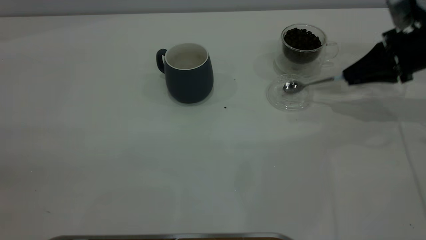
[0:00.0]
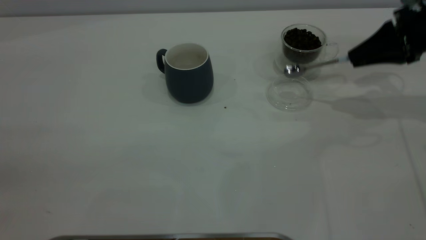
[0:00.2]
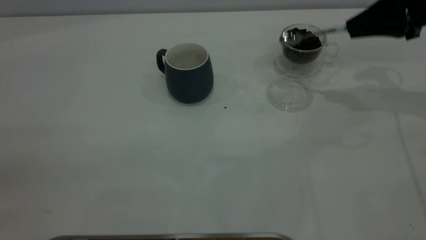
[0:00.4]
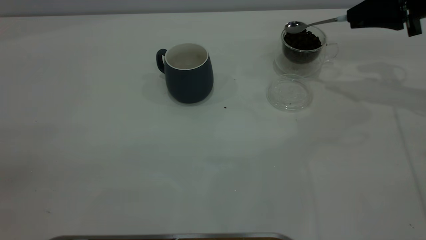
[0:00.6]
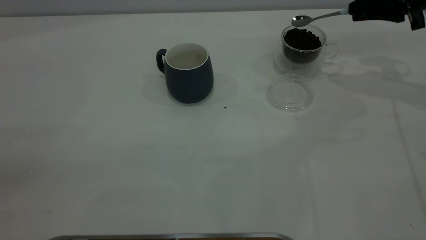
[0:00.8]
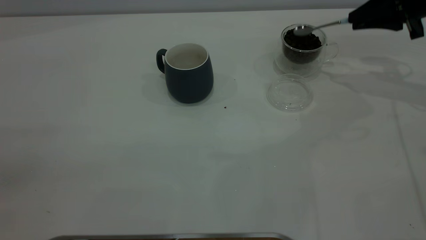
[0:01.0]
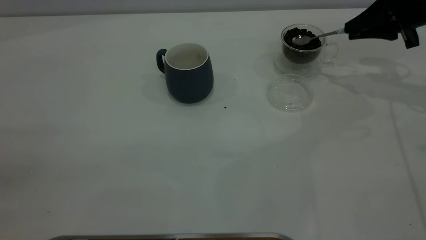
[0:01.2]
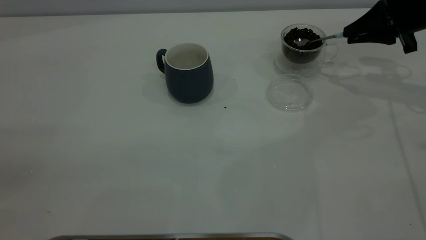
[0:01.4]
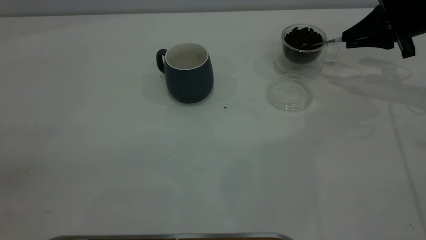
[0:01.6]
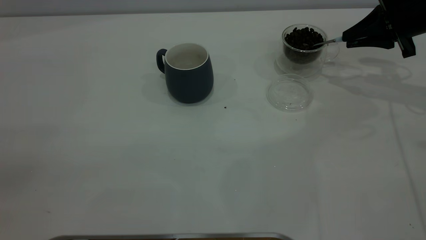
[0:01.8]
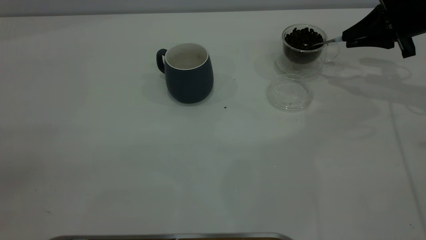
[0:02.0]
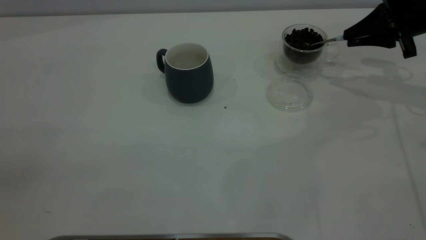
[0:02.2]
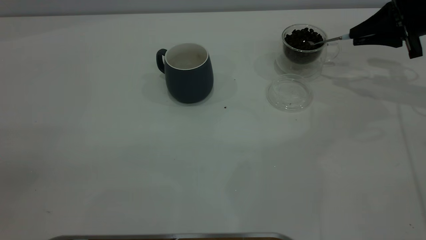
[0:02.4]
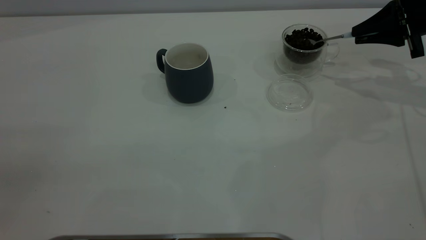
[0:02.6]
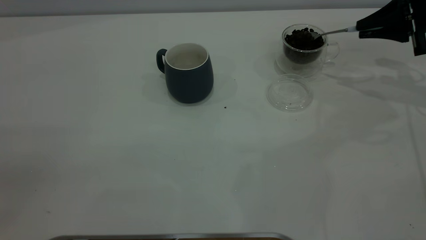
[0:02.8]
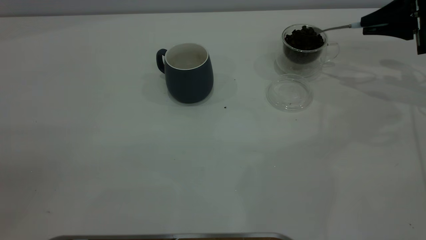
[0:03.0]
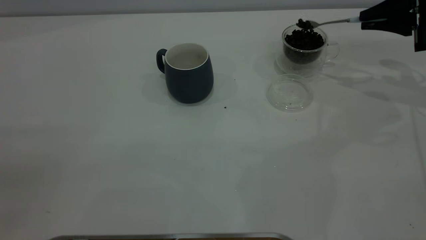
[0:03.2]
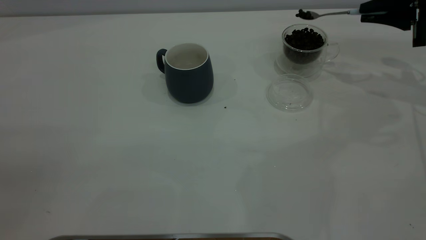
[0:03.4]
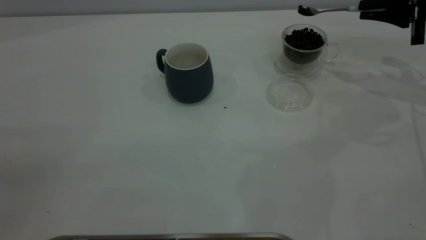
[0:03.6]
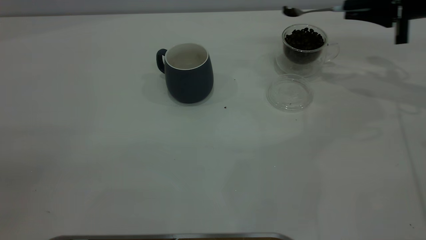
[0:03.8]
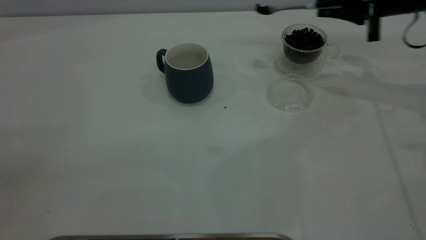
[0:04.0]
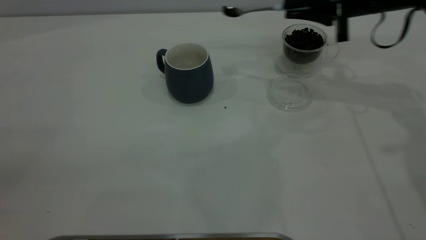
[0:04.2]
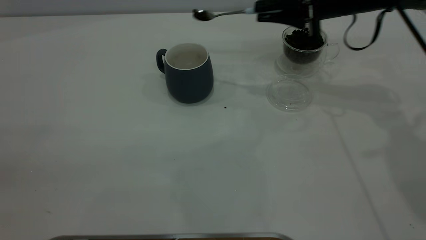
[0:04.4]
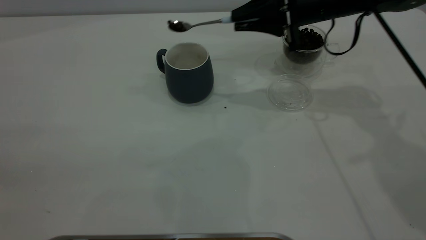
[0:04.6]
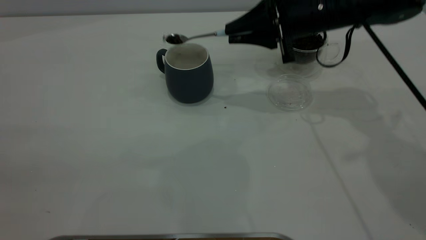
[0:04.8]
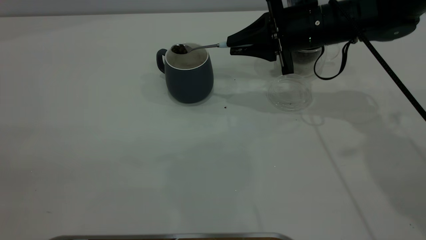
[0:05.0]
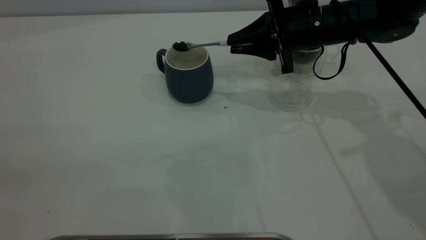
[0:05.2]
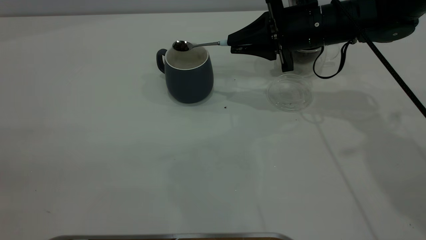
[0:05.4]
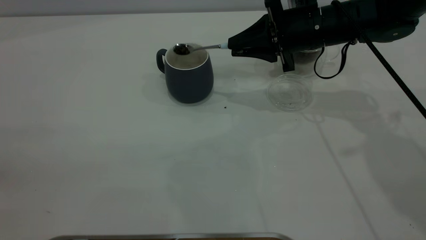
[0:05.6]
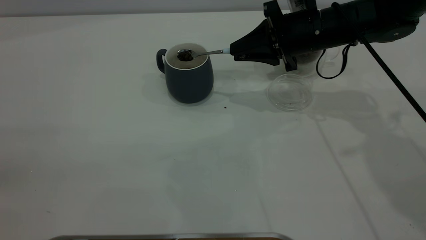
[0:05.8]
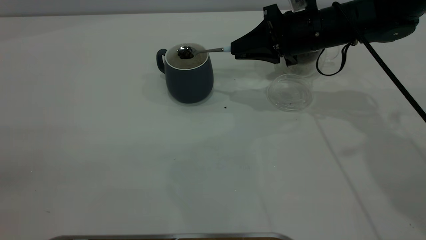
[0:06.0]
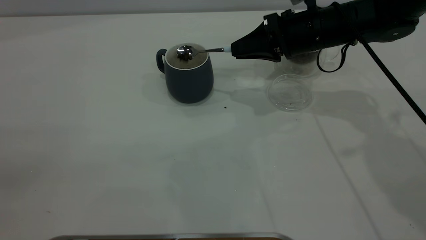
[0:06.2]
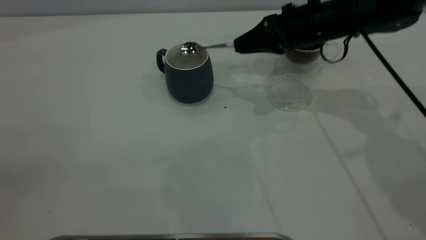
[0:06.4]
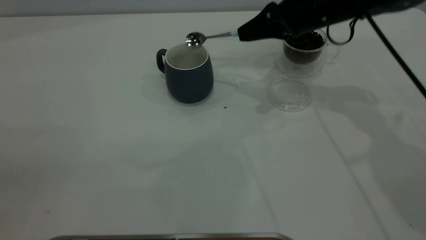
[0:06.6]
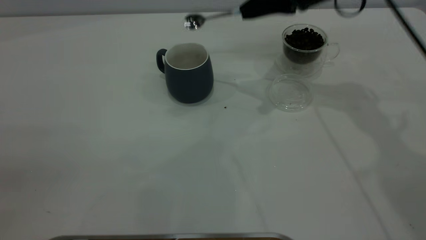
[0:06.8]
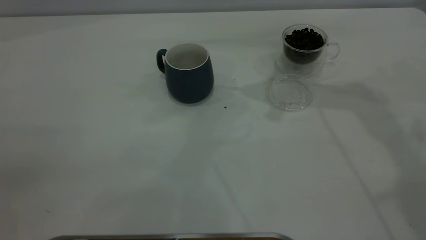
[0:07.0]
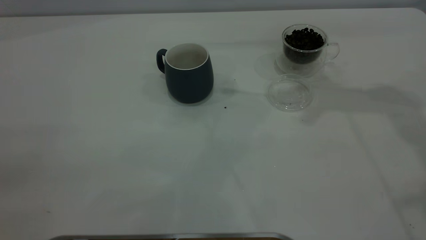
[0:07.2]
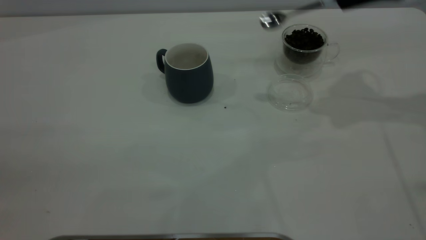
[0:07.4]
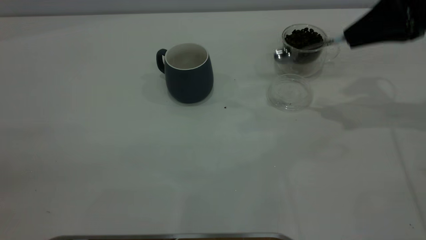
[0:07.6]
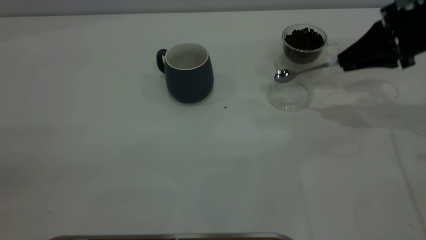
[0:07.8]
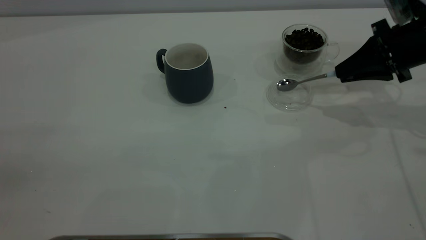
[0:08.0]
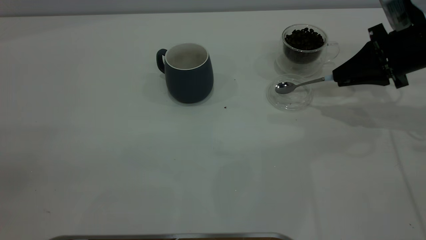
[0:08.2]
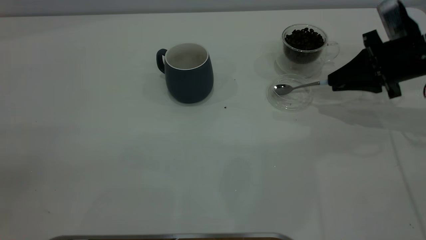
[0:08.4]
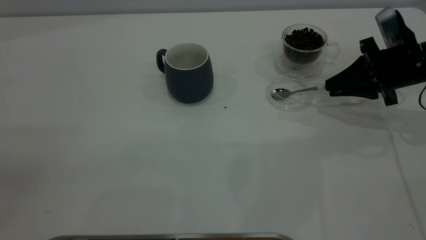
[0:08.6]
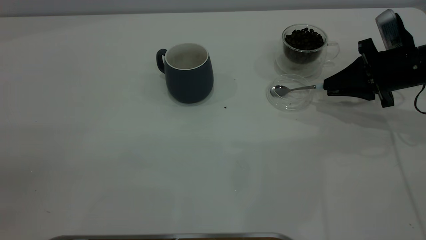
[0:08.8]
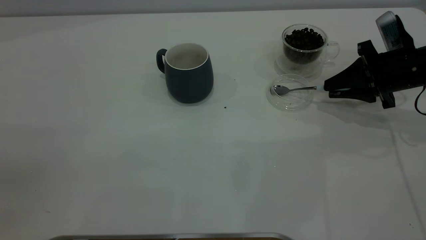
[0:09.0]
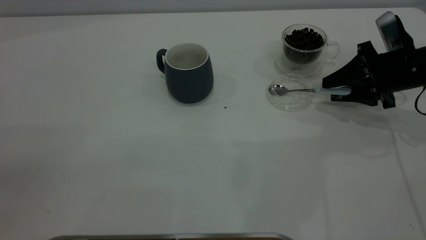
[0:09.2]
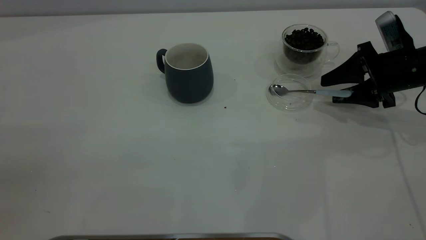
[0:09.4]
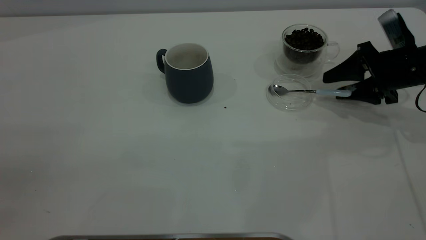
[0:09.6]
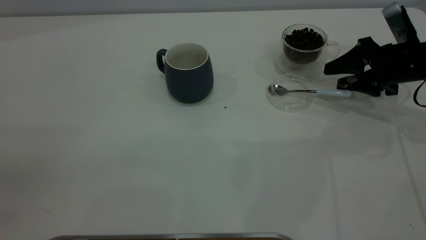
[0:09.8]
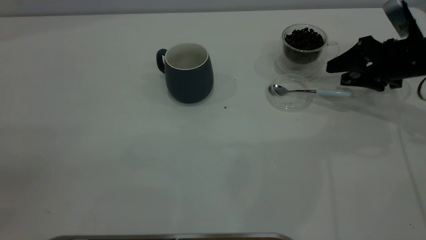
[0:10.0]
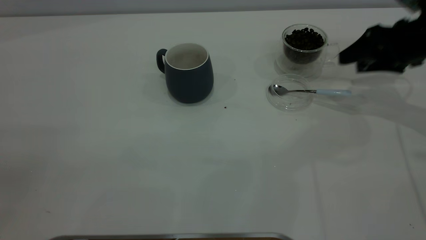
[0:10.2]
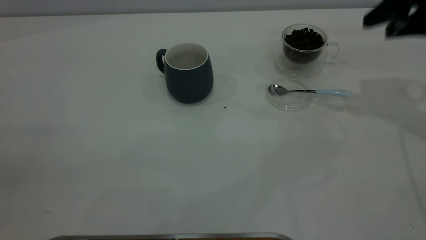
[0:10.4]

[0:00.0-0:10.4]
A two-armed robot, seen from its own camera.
Task of the whole recording: the left gripper place the grey cup in the center of the table, the right gripper take the blue spoon from the cup lid and scoop out the coffee beans from the coffee cup and put them into the grey cup, the right gripper put the spoon back into the cup lid.
Step, 0:00.4 to 0:06.6: Scoop a spoonful of beans into the cup.
Step, 0:06.8 to 0:10.0: Place the spoon back in its original place.
0:01.4 to 0:03.0: The grippers stay close to where they were, moving slightly.
0:03.0 to 0:04.4: The right gripper is displaced to the left by roughly 20 cm.
0:04.4 to 0:06.0: The right gripper shifts about 5 cm downward.
0:06.0 to 0:07.4: The right gripper moves to the right and upward, about 20 cm.
0:07.4 to 0:09.0: The right gripper moves downward, about 15 cm.
0:09.0 to 0:10.4: The right gripper travels upward by approximately 15 cm, and opens its fingers.

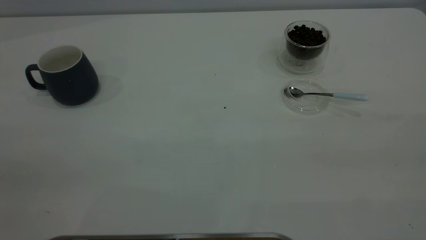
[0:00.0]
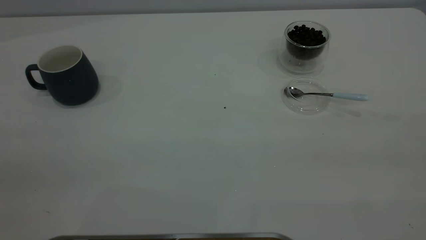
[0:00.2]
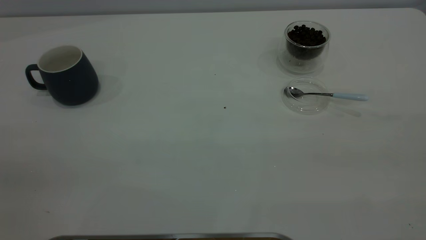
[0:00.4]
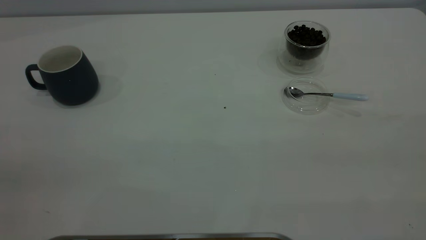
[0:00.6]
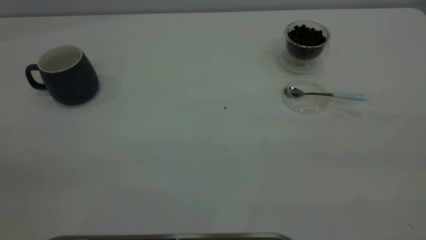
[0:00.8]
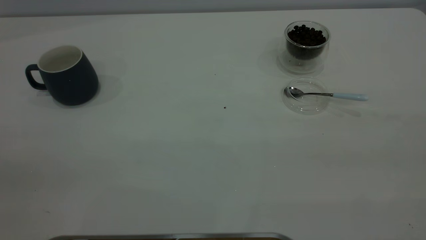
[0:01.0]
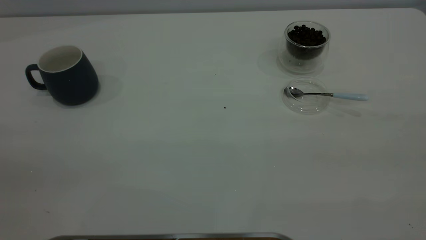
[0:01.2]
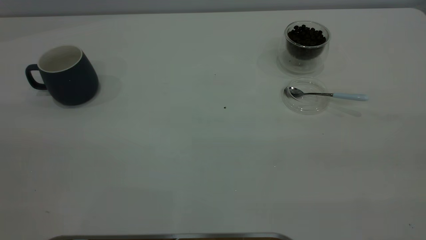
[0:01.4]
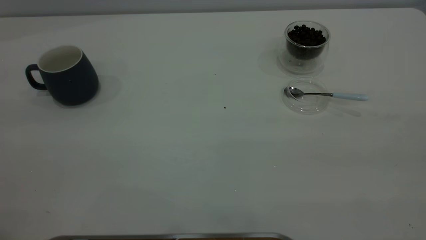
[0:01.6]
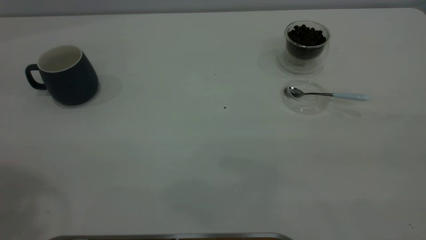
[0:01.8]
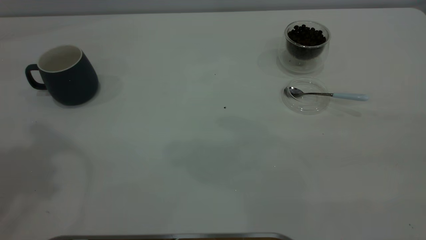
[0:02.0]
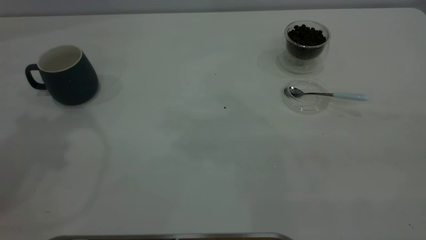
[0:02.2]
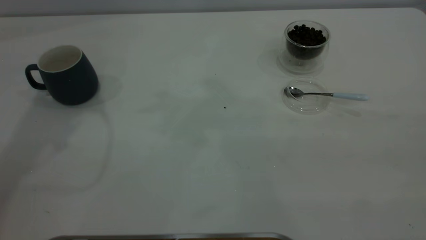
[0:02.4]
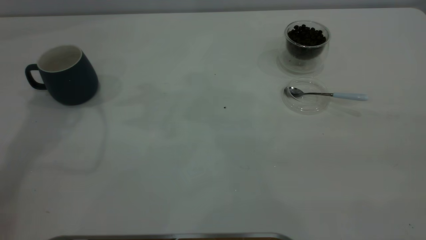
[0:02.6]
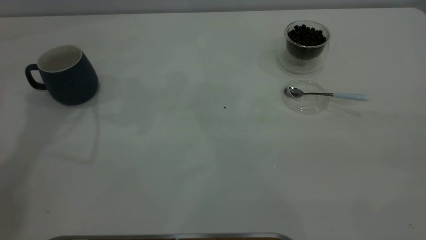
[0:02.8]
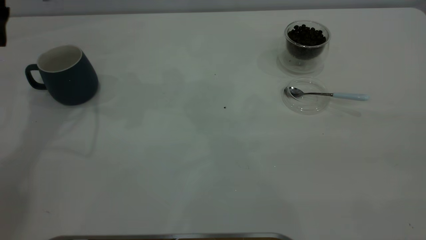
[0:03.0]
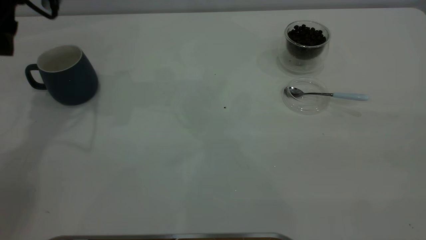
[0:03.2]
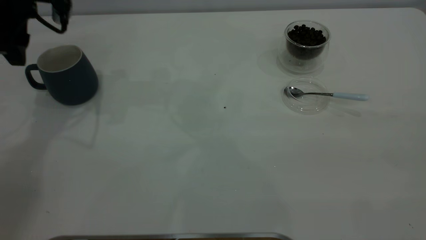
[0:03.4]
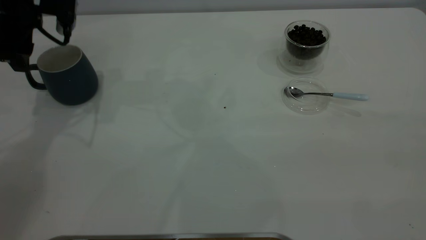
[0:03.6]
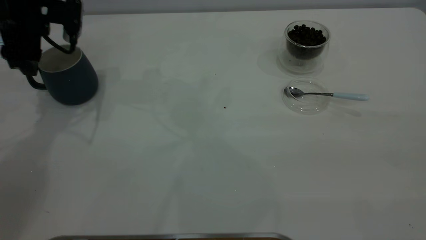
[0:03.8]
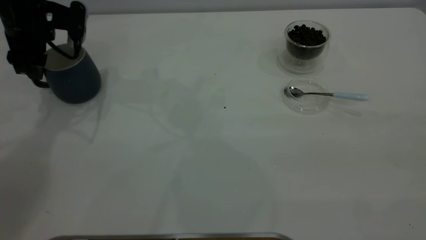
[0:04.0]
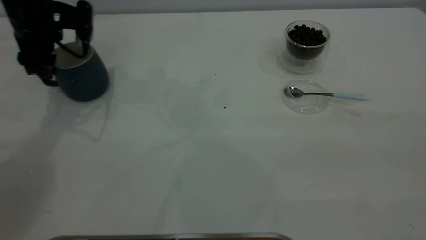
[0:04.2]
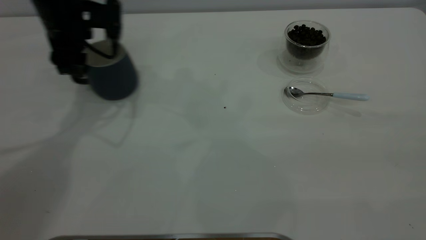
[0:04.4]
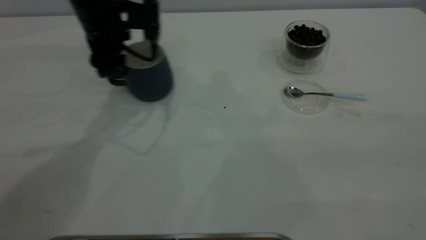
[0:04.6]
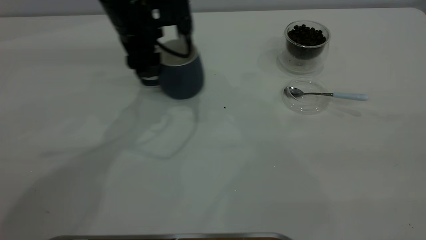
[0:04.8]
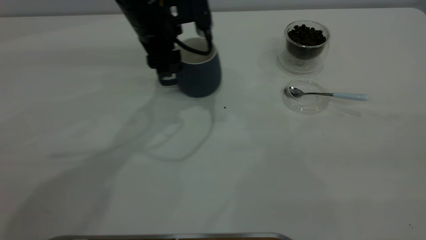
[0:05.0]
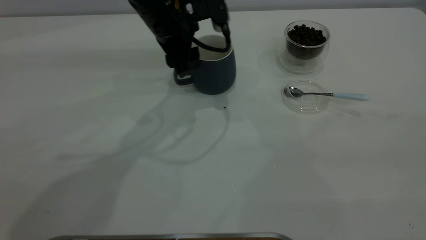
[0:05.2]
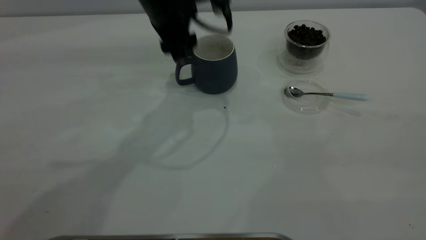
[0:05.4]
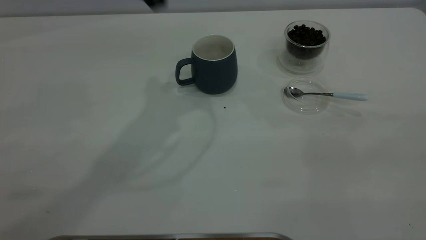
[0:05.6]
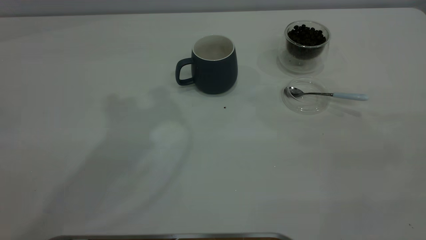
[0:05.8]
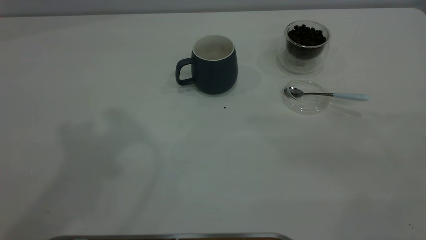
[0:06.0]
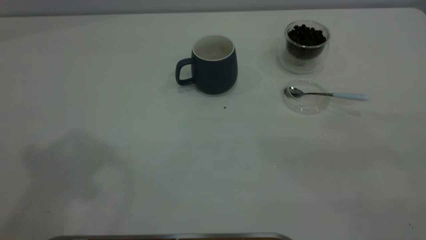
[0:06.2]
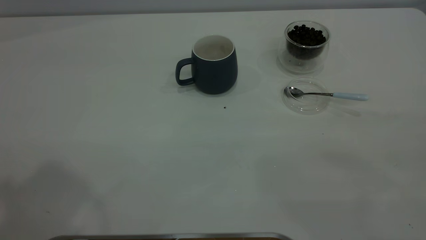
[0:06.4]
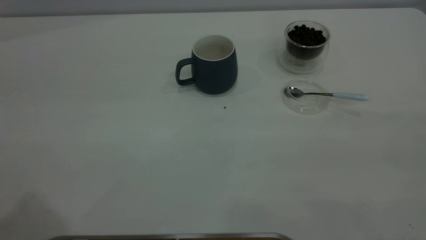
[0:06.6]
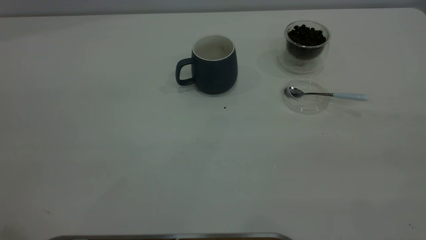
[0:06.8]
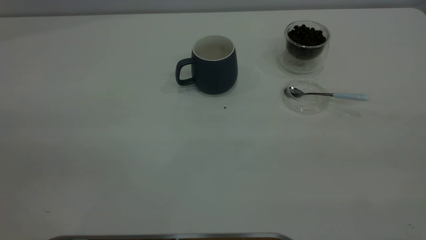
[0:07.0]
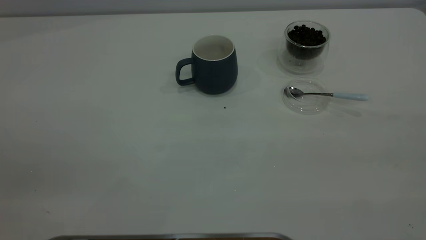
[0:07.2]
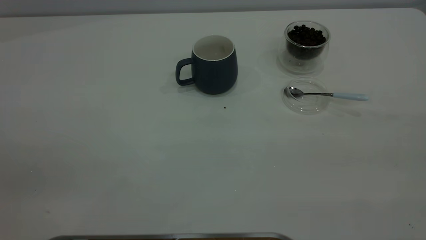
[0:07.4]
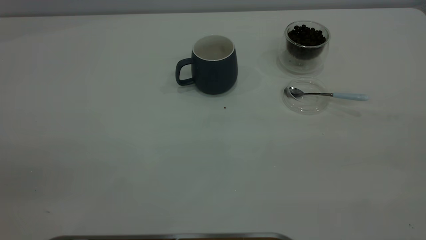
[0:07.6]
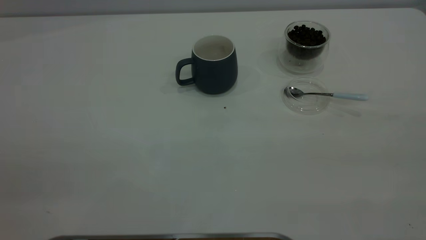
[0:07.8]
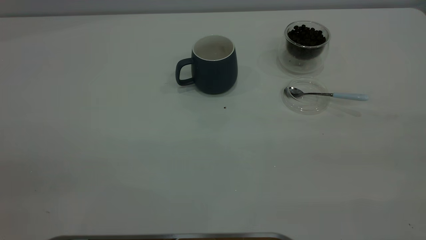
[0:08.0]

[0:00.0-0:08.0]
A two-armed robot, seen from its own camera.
Task of the whole recording: the left gripper place the grey cup in the center of the table, the right gripper take the blue spoon from the cup lid and scoop out the coffee beans from the coffee cup and put them into the grey cup, the right gripper put the spoon back into the cup lid.
Step, 0:00.0 to 0:05.2: Move the cup to the center of view.
0:01.6 to 0:03.2: The left gripper goes approximately 40 cm forward and downward.
0:03.2 to 0:04.8: The left gripper heads to the right, covering roughly 20 cm.
0:04.8 to 0:06.4: The left gripper moves upward and backward, approximately 40 cm.
